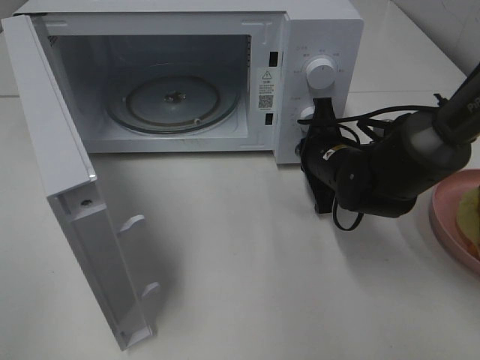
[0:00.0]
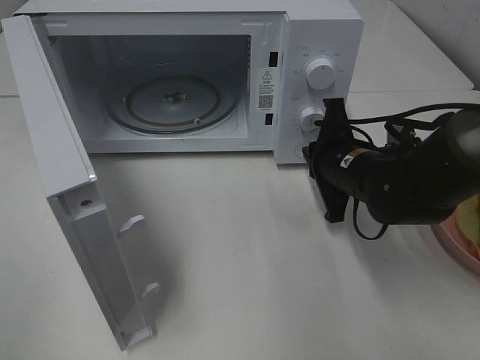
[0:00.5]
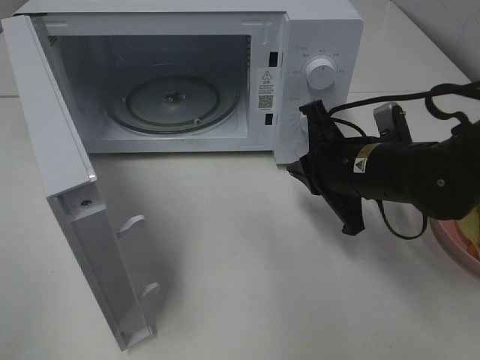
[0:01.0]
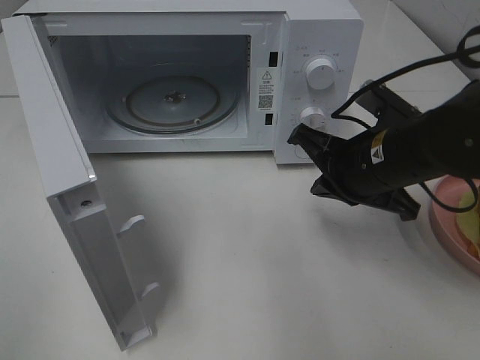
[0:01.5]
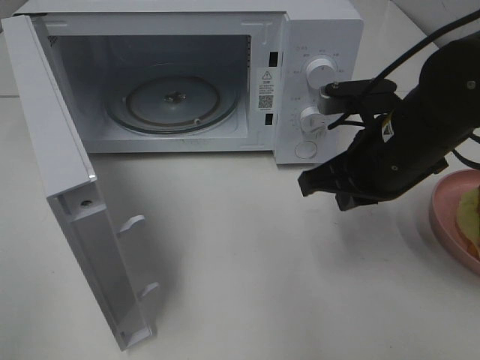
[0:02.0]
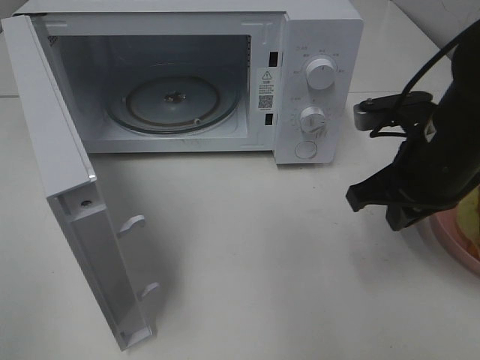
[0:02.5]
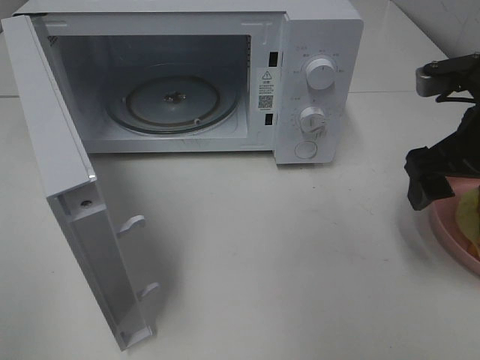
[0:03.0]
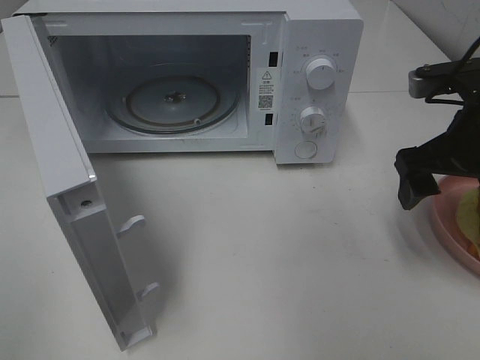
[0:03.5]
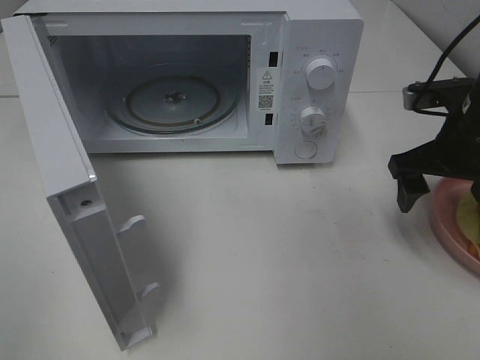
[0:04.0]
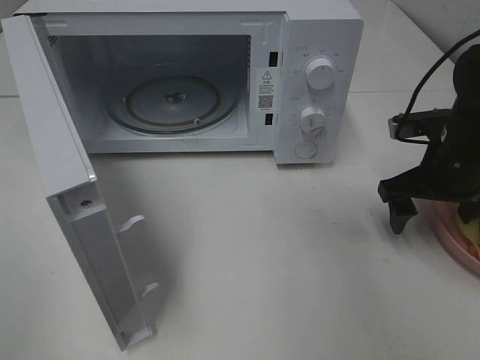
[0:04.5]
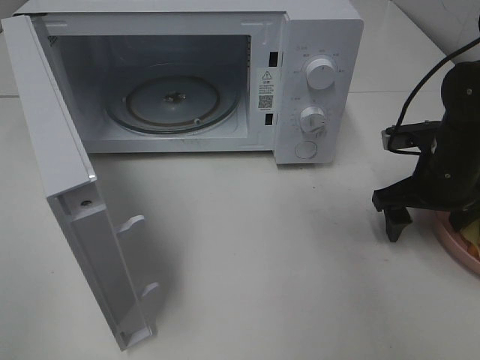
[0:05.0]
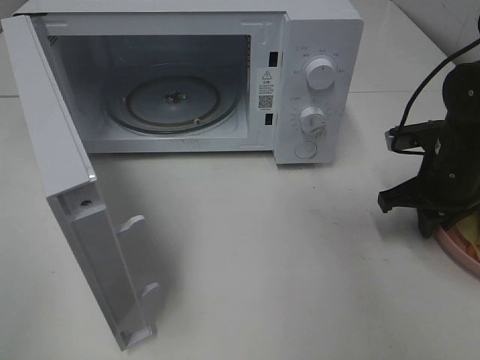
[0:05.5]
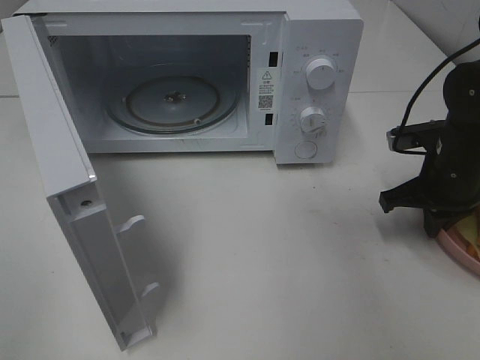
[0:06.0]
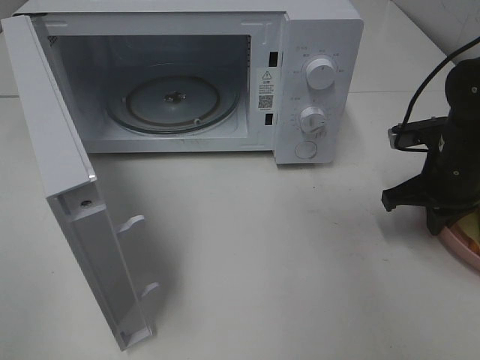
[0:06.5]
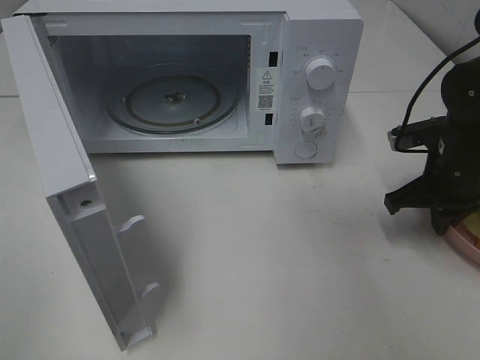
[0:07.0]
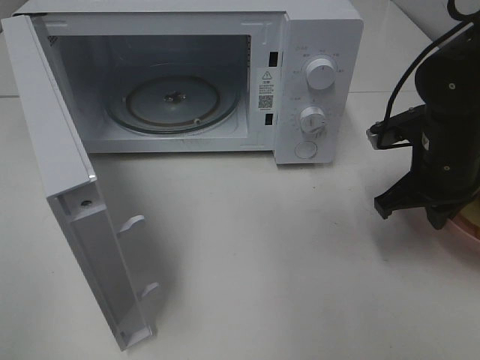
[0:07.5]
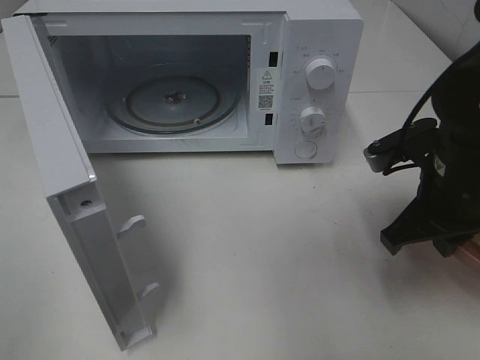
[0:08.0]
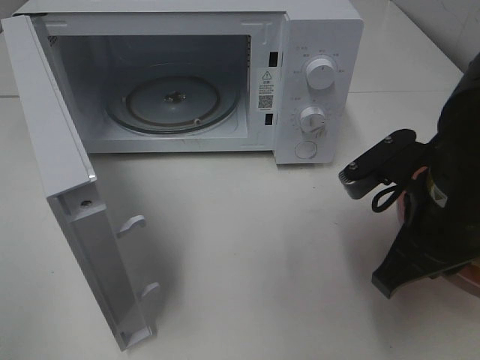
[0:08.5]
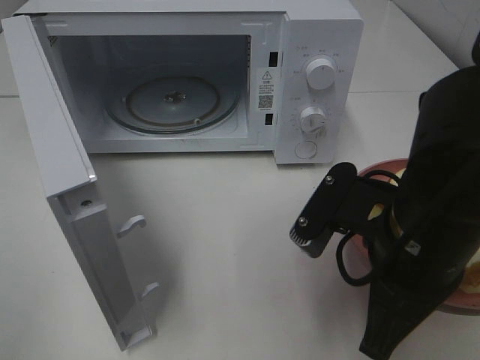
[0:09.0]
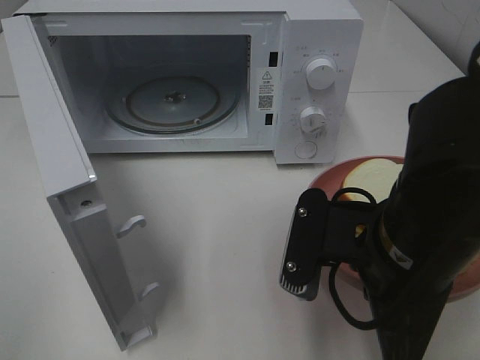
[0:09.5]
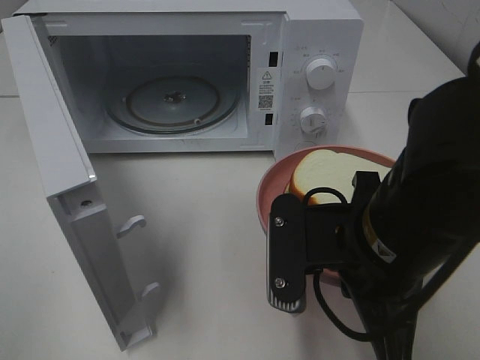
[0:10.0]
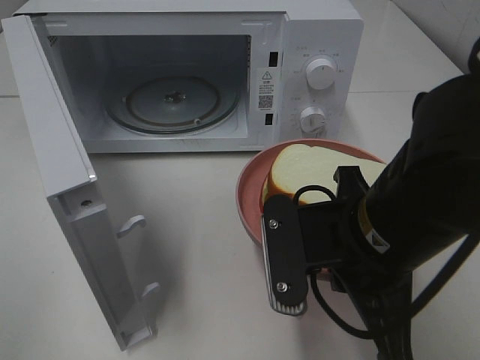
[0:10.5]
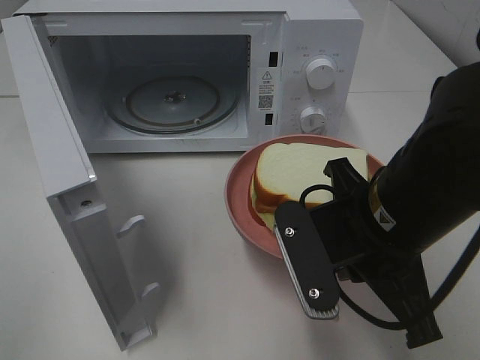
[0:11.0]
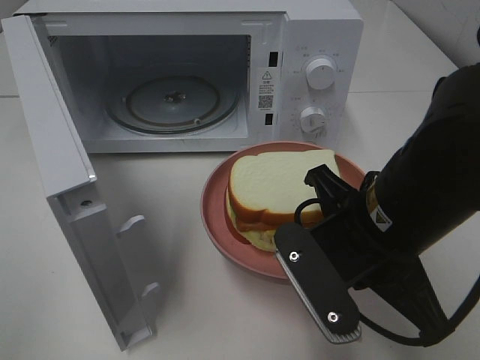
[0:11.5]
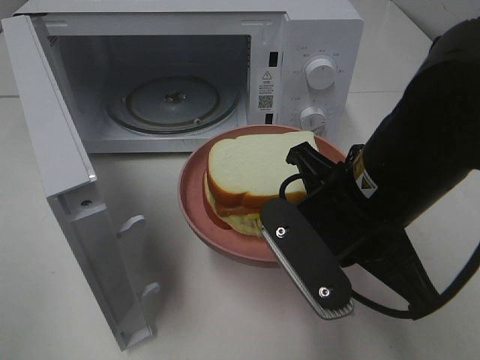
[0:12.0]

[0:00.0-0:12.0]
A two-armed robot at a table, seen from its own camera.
Task of the whole recording: Heat Sandwich.
Step, 1.0 to 6.5 s: Right hand: grab the plate with the sandwich.
0.0 to 2.0 s: The right gripper is displaced upward and backward by approximately 10 cm.
2.0 to 4.0 s: The right gripper heads to the right, covering some 10 cm, and opens up.
4.0 to 6.0 s: The right gripper shifts about 5 cm downward, and closes its fingers.
6.0 to 8.0 s: The right gripper is displaced backward, to the left and upward by some 10 cm.
8.0 to 10.0 s: The right gripper is displaced to the left and backward by roughly 15 cm.

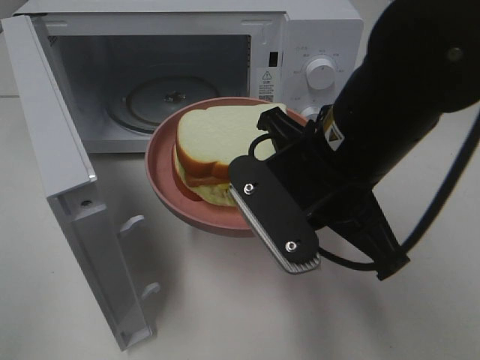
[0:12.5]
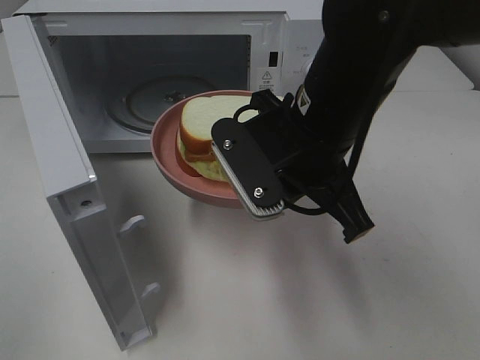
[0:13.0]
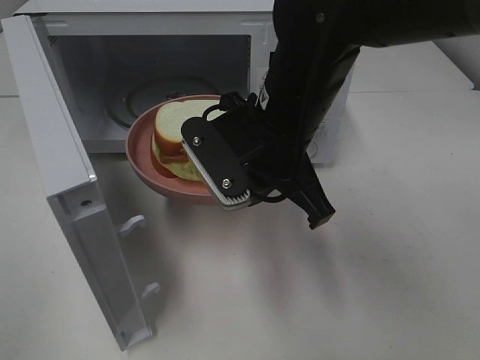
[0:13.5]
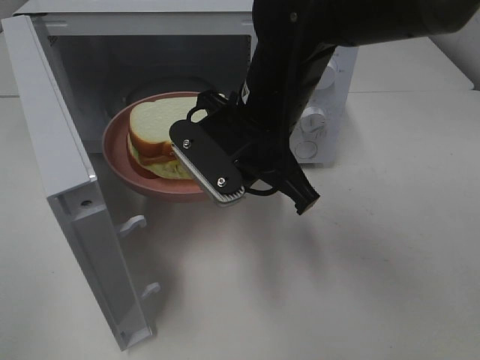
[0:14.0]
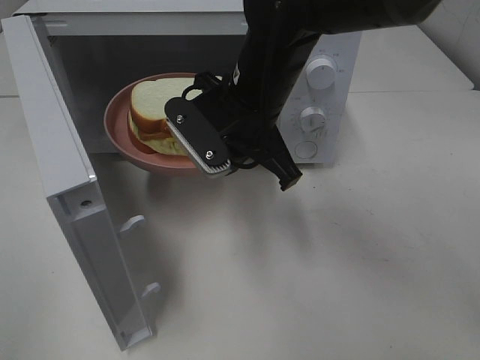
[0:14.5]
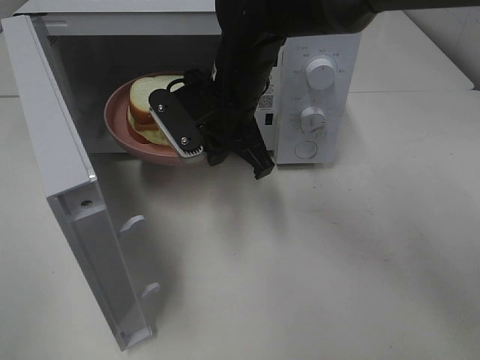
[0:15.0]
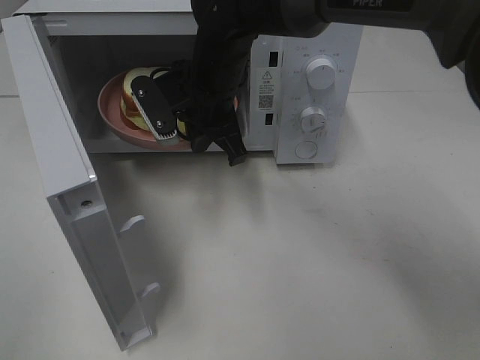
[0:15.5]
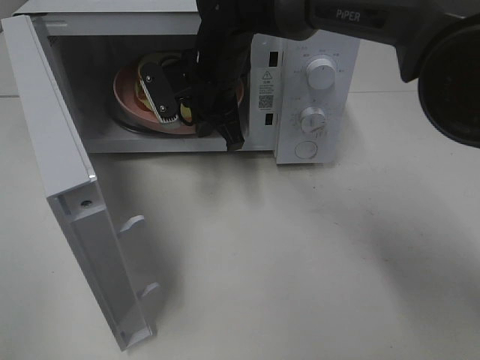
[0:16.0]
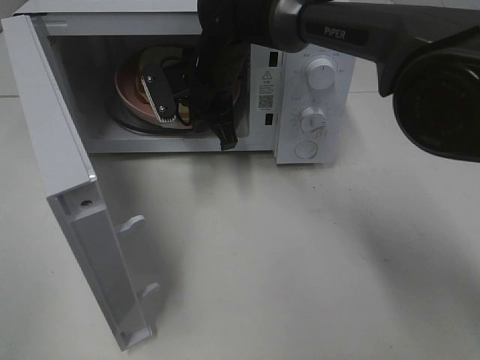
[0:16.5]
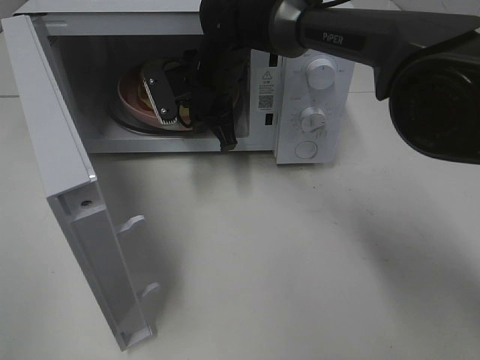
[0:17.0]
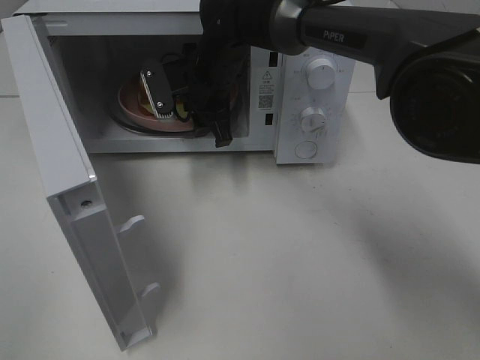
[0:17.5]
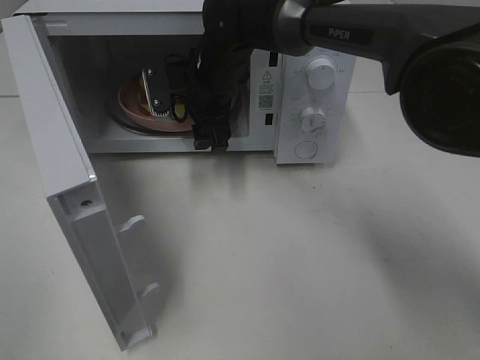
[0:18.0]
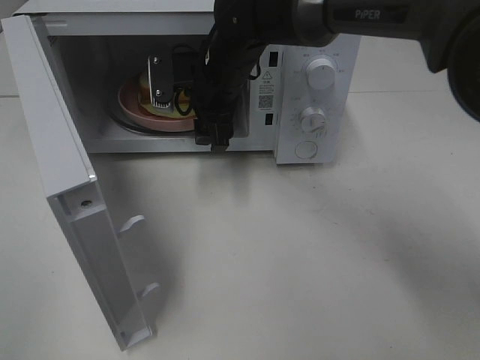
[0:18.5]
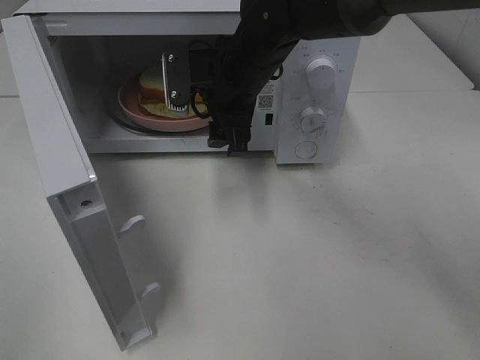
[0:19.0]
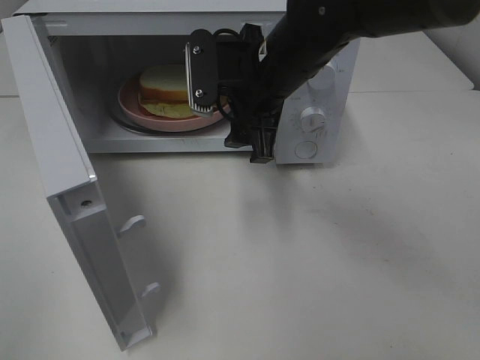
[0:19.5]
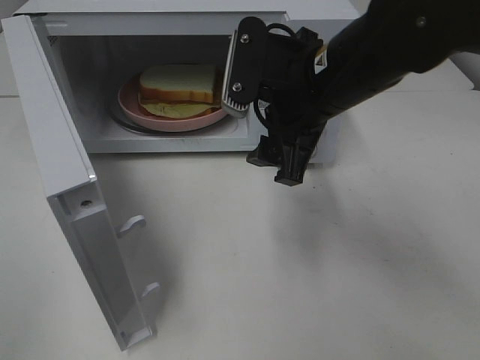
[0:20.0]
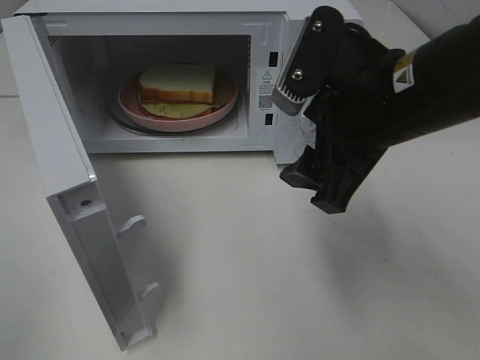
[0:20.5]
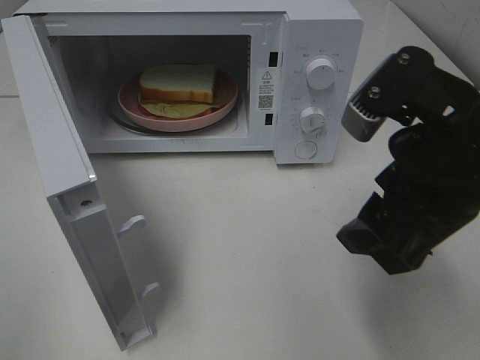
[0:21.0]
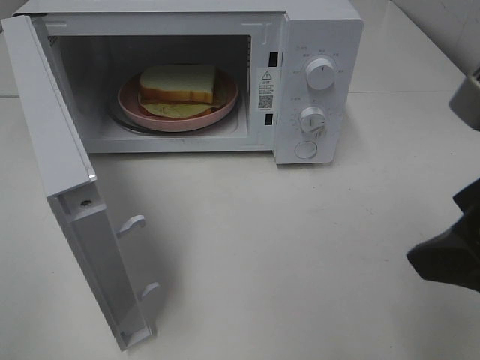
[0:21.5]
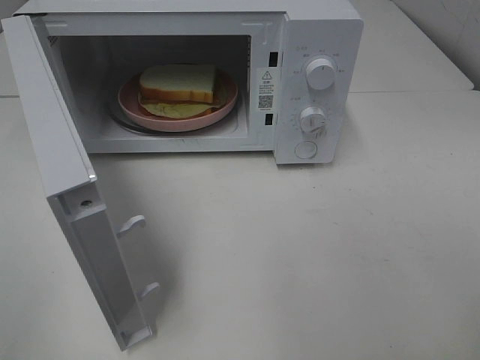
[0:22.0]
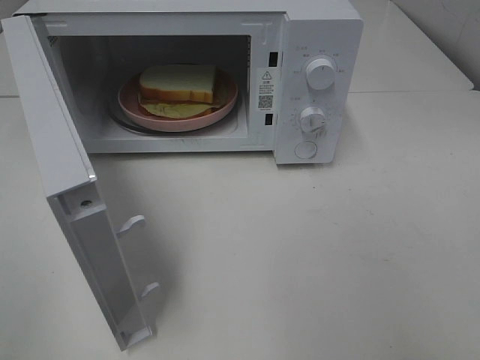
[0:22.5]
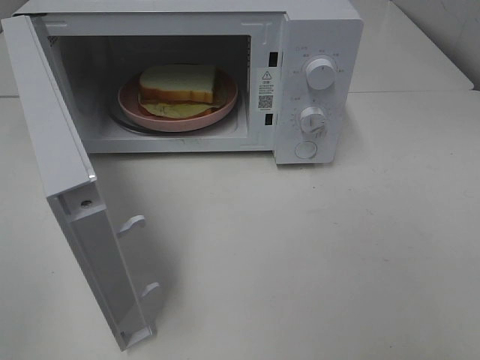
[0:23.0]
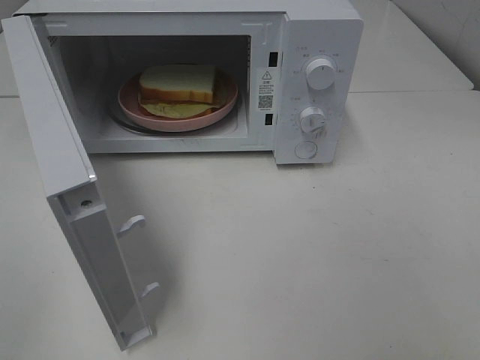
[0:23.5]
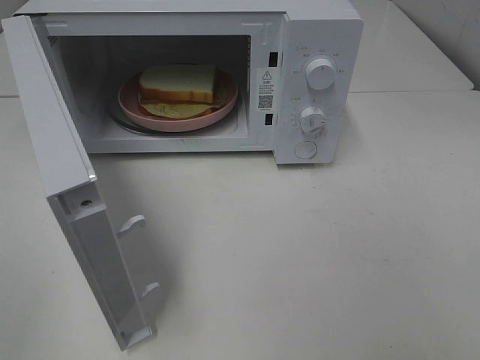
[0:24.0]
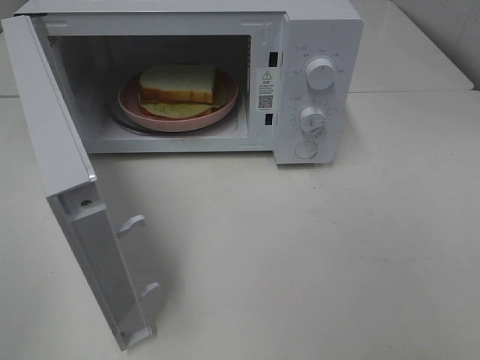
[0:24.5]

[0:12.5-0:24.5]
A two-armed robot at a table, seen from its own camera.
Task of the whole recording: Heat Sandwich.
Step, 12.5 to 18.0 s: Right hand: place the plate in the microwave.
12.5 to 14.5 s: The right gripper shifts about 15 cm forward and to the left.
14.5 to 16.5 s: The right gripper is displaced forward by approximately 10 cm.
16.5 to 18.5 s: The right gripper opens up.
18.5 to 20.5 s: The right gripper travels backward and to the right by roughly 25 cm.
20.5 to 22.5 s: The right gripper shifts approximately 25 cm backward and to the right.

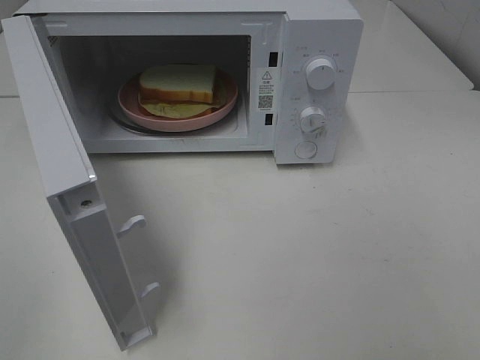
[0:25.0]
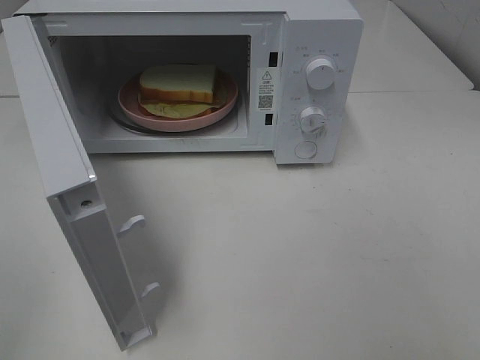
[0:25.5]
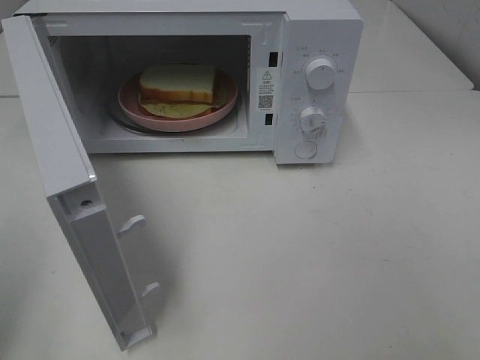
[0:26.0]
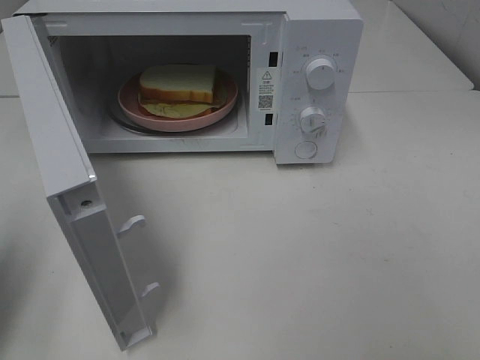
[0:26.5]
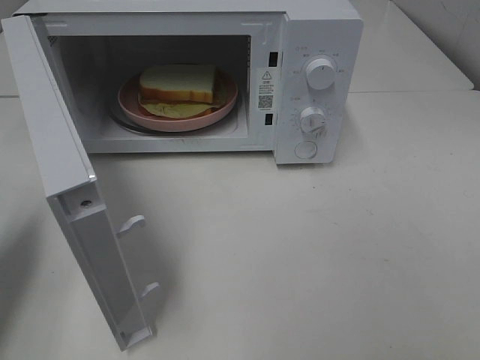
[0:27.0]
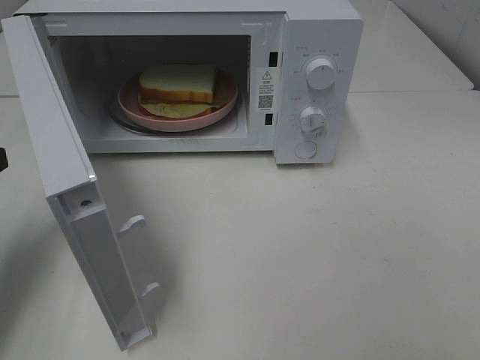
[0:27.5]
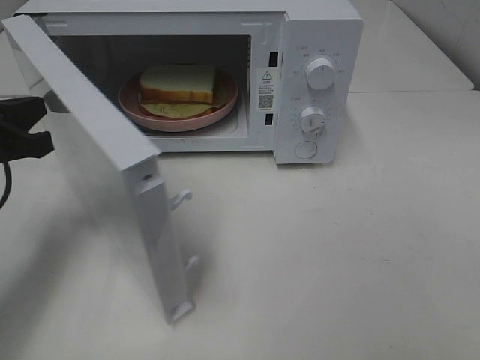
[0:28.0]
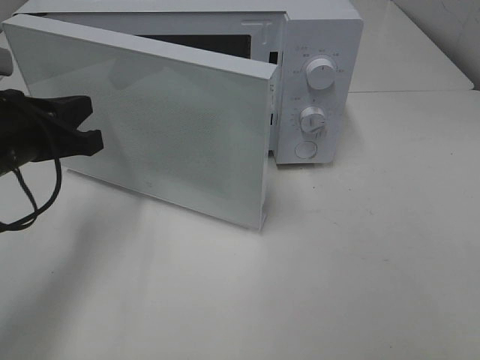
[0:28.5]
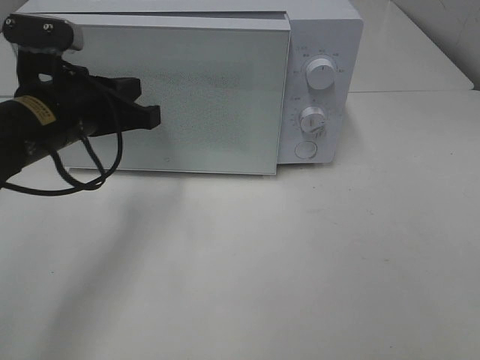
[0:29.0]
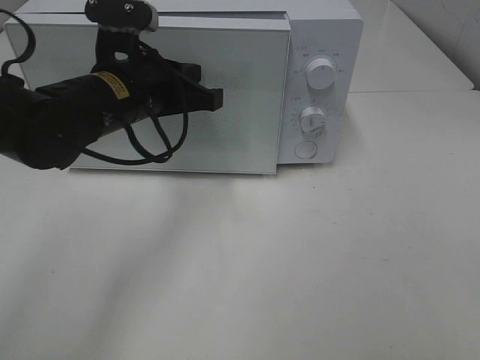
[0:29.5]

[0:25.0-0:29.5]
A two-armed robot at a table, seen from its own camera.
Task of the whole recording: Heat Sandwich.
25.0 to 27.0 s: The left gripper moves forward, roughly 20 cm, and closes up.
27.0 to 29.5 s: The left gripper shifts approximately 25 cm to the right and forward.
